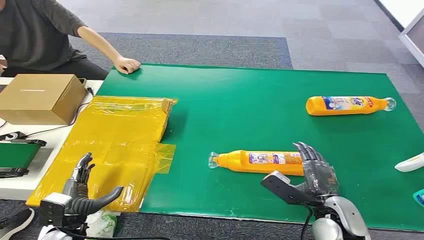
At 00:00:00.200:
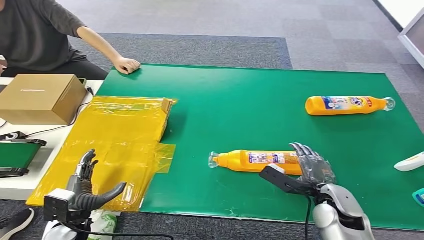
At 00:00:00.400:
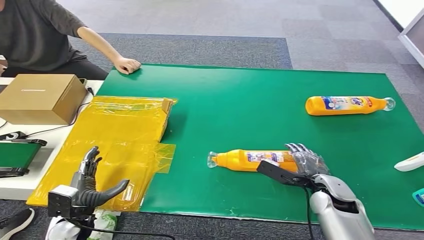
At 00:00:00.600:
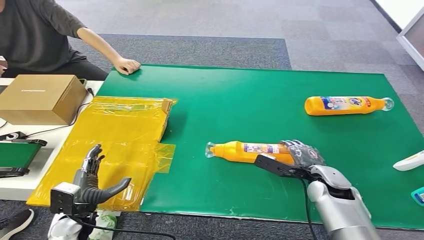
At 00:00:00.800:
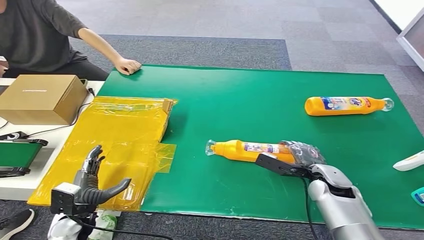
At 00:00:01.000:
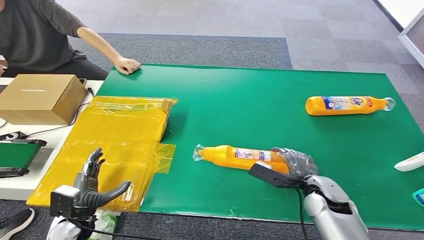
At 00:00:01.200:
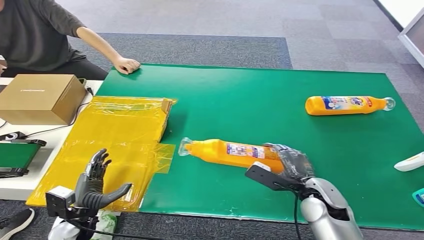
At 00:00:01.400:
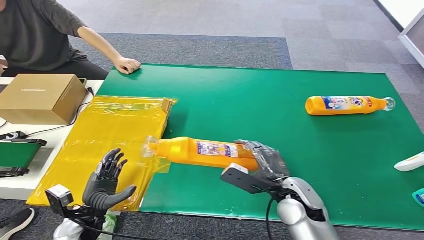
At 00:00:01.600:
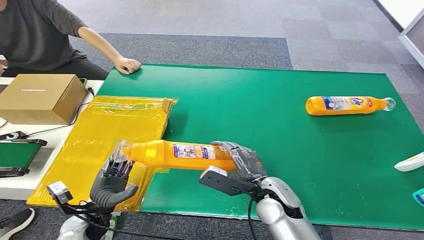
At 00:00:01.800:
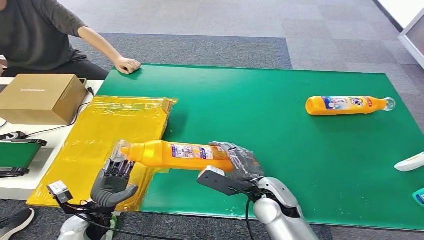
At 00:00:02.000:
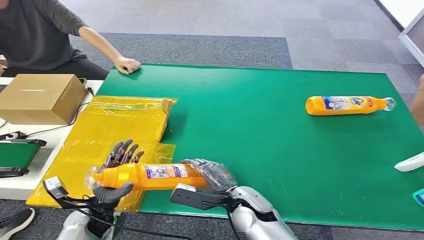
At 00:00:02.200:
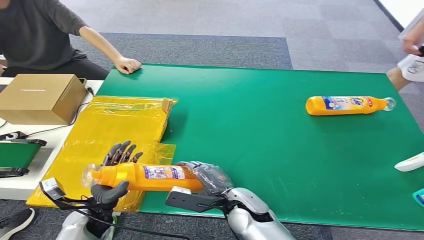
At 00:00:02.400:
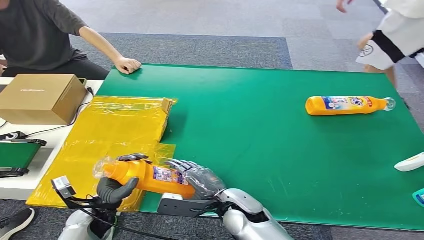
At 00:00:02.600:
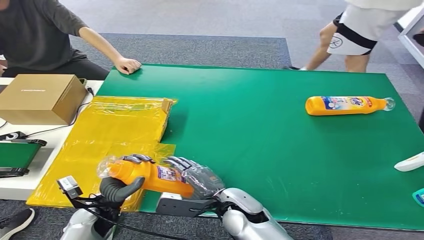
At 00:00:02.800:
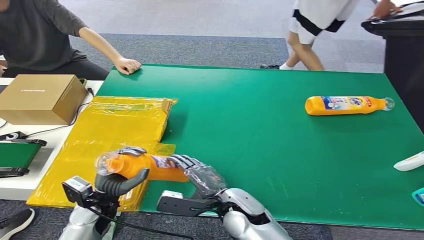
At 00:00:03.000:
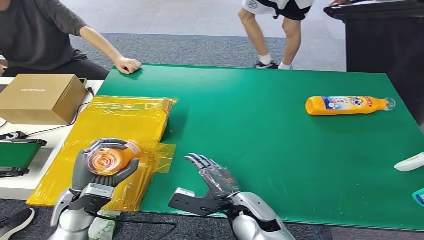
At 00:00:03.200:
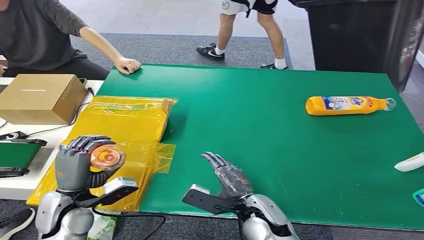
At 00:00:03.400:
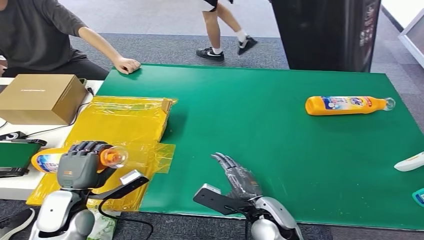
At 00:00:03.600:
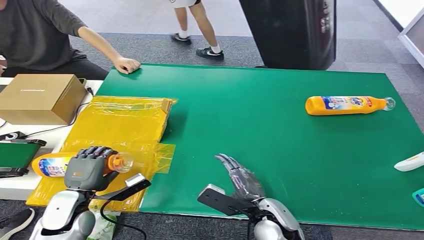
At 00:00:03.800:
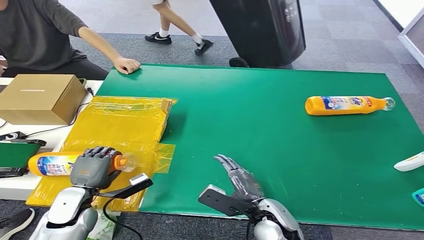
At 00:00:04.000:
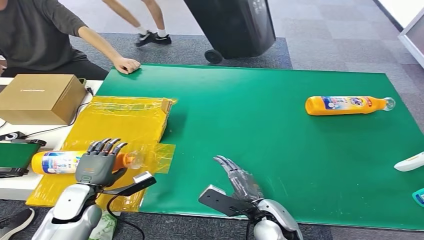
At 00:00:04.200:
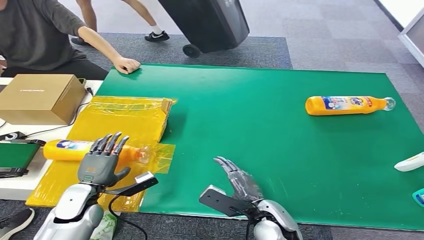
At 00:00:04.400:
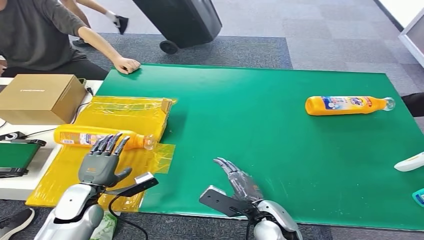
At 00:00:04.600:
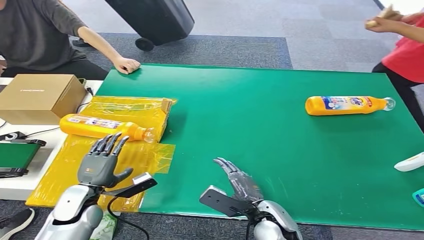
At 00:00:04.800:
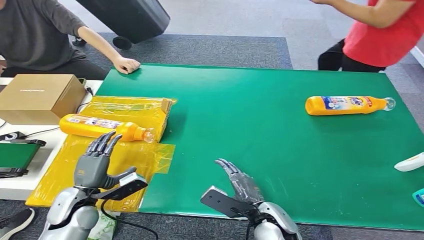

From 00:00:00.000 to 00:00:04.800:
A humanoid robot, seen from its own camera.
Step, from 00:00:00.000 to 00:00:01.200: Pick up the bottle from the table.
Step, from 00:00:01.400 to 00:00:04.800: Turn the bottle to the front side.

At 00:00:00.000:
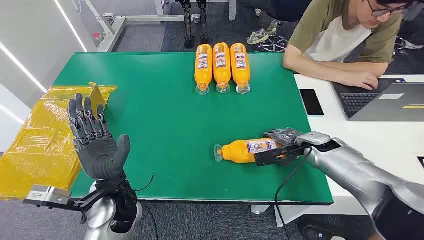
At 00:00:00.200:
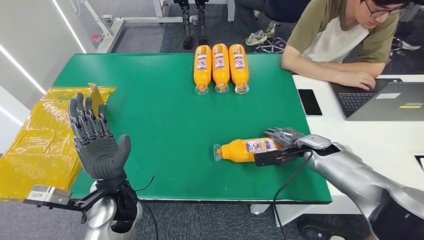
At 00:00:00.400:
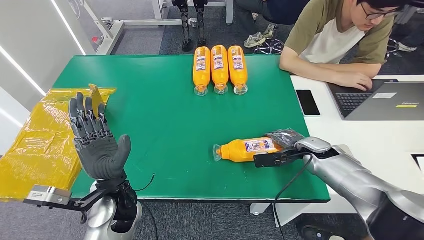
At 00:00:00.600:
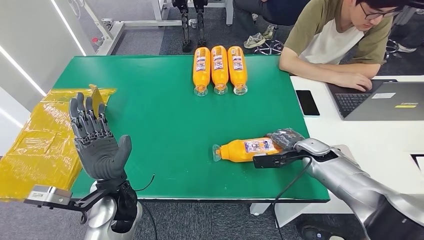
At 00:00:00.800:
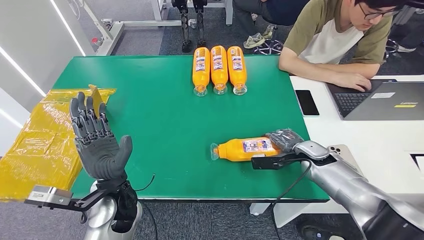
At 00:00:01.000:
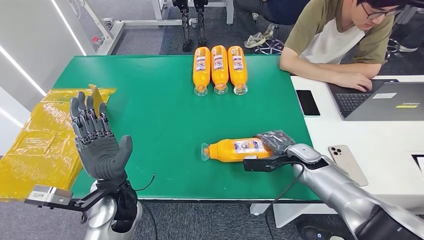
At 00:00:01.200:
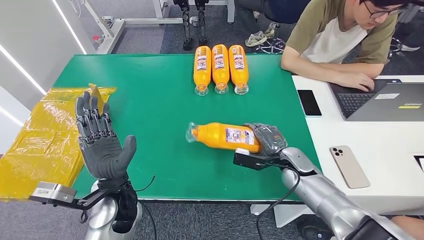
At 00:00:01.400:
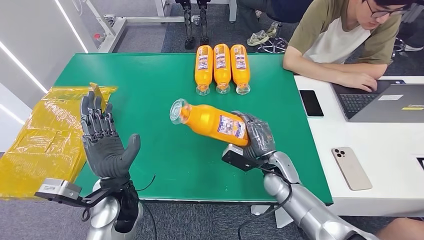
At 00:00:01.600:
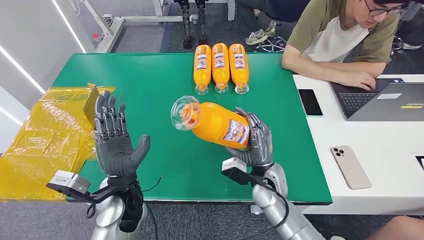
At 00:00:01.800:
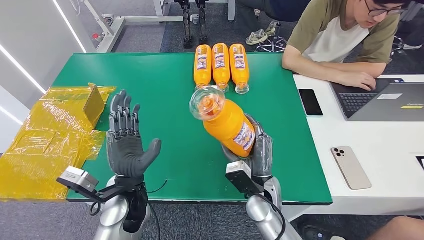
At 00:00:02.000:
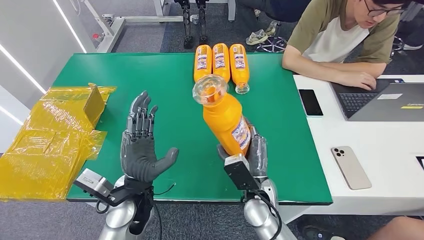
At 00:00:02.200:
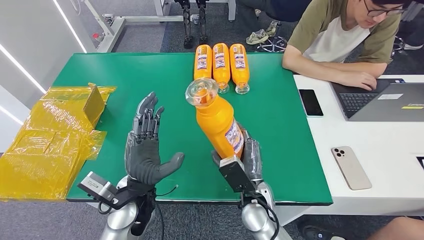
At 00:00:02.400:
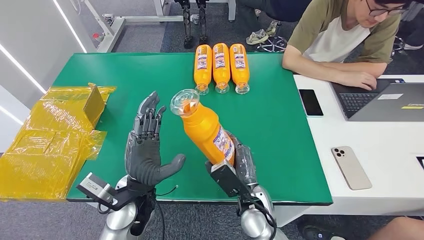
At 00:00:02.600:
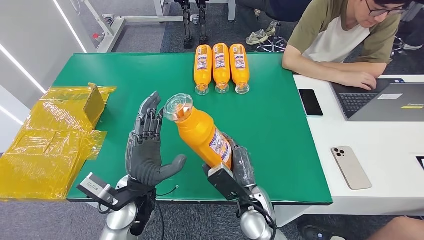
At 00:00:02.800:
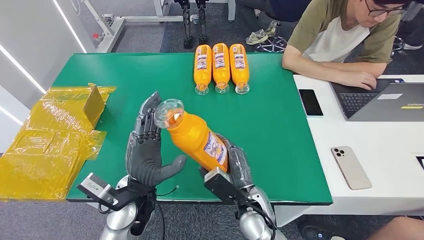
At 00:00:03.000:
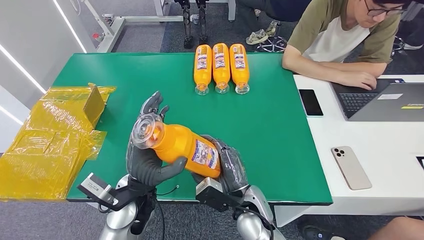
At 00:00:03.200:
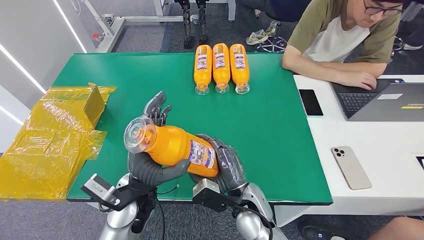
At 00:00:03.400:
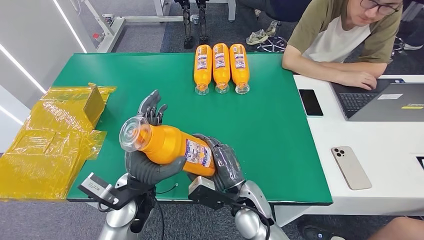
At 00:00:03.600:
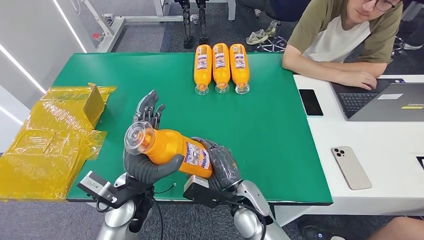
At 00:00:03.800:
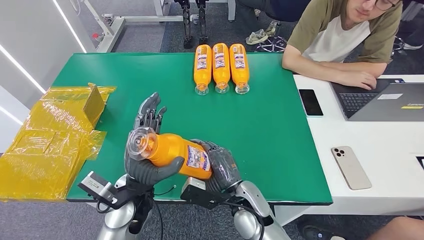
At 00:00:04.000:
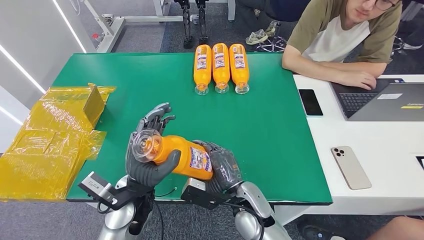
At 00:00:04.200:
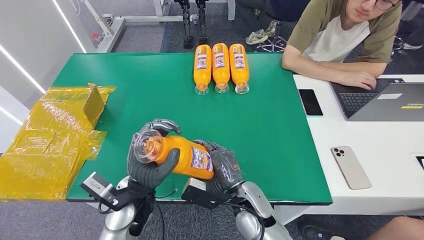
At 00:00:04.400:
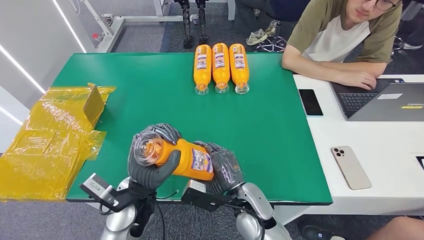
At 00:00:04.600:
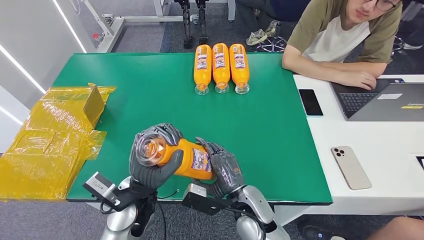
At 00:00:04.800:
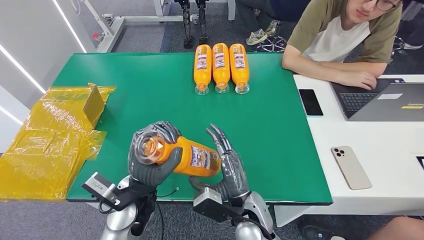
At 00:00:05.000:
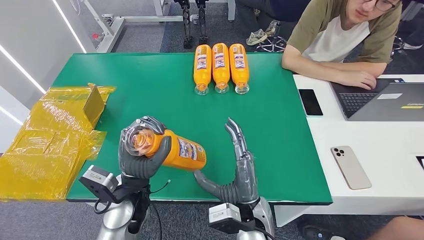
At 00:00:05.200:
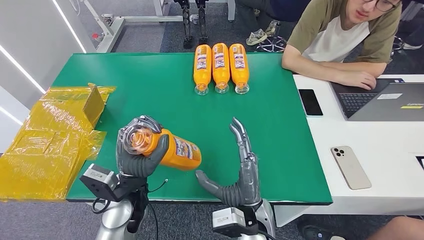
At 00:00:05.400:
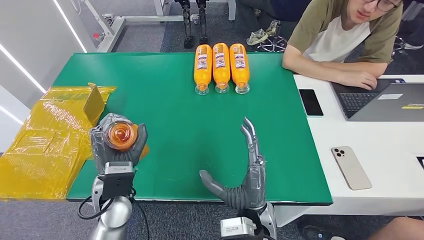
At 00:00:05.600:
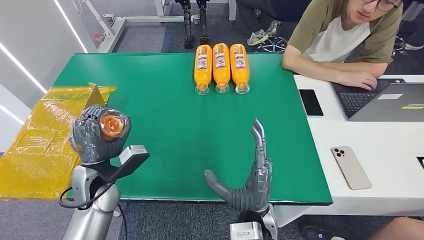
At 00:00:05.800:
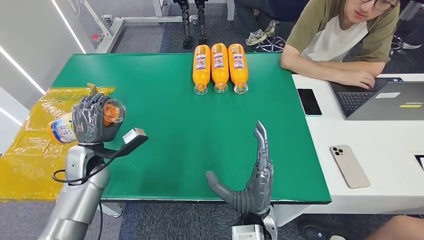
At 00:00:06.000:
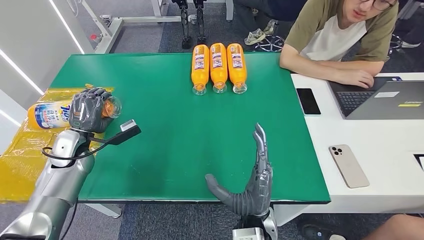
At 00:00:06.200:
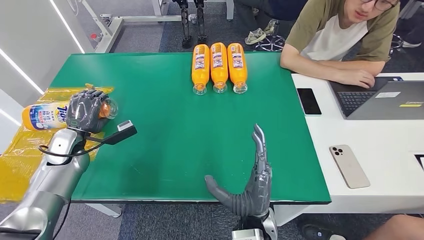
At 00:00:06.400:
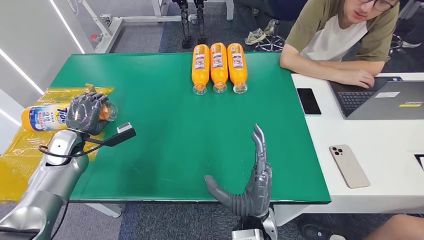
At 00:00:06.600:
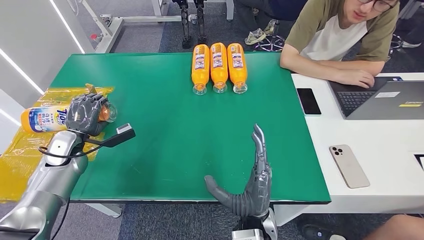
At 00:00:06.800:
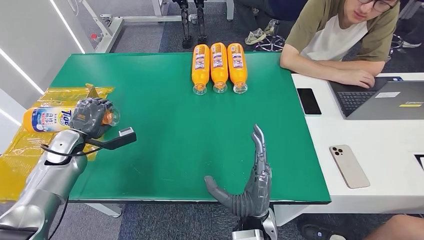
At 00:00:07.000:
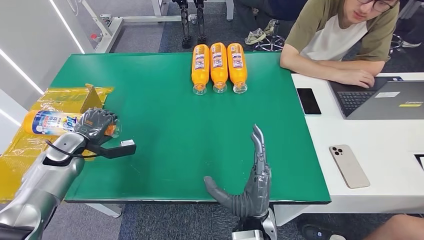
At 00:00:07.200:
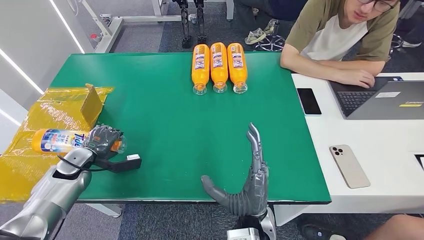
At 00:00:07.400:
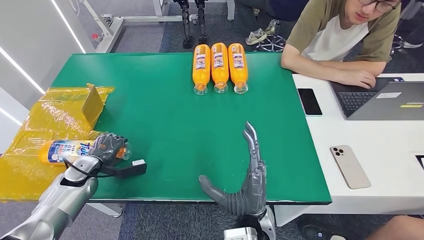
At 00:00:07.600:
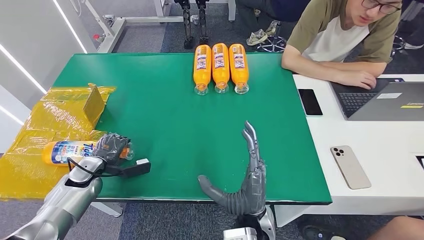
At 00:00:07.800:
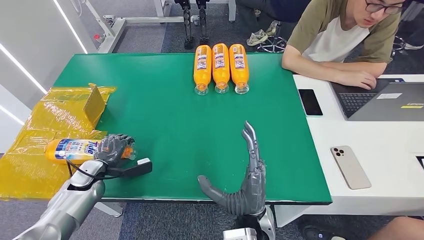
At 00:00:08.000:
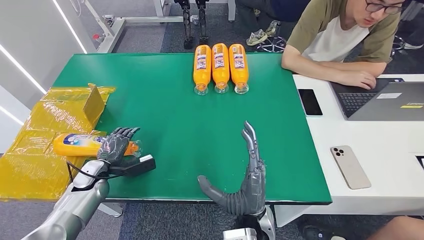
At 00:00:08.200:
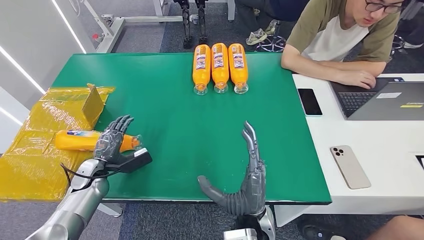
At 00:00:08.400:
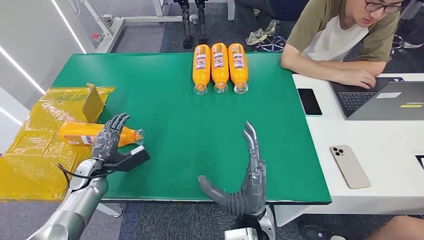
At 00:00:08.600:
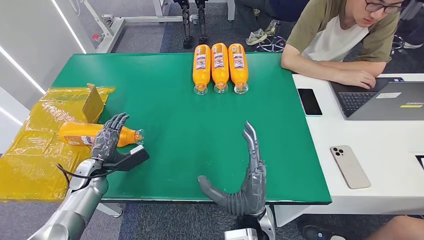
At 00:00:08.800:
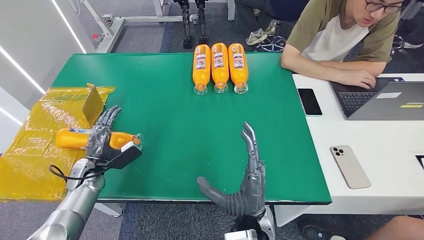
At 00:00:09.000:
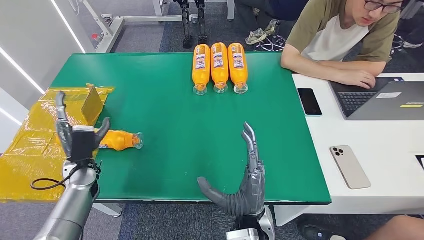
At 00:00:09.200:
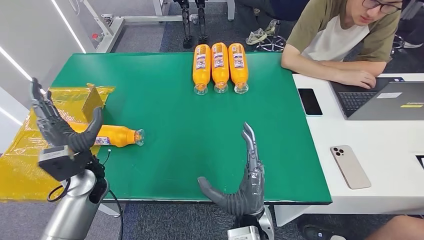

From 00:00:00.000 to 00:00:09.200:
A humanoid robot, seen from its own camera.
Step, from 00:00:00.000 to 00:00:03.000: Pick up the bottle from the table.
Step, from 00:00:03.200 to 00:00:09.200: Turn the bottle to the front side.
From 00:00:01.600 to 00:00:03.000: The right hand travels backward and to the left by about 10 cm.
From 00:00:07.600 to 00:00:09.200: The left hand moves to the right and upward, about 15 cm.
